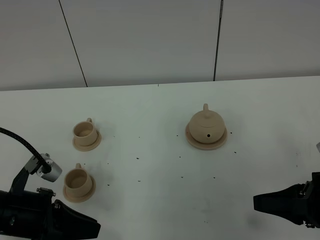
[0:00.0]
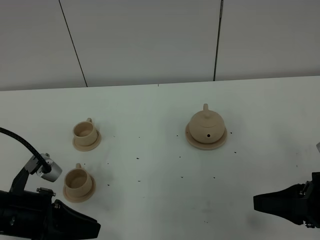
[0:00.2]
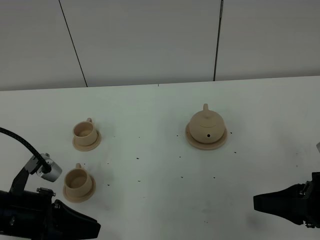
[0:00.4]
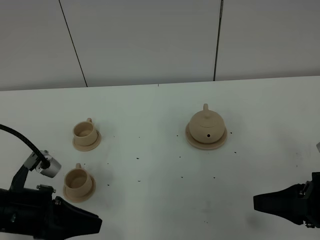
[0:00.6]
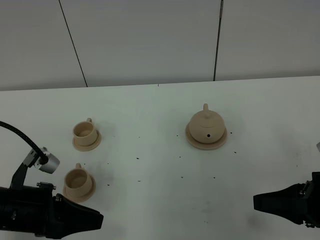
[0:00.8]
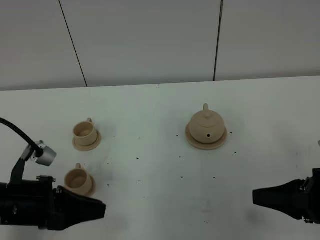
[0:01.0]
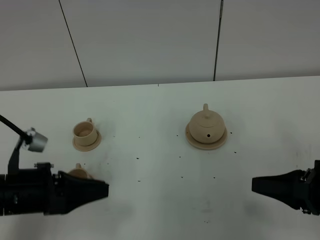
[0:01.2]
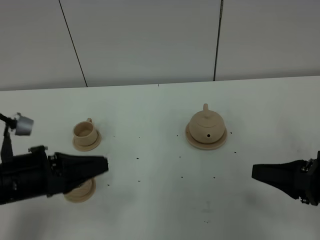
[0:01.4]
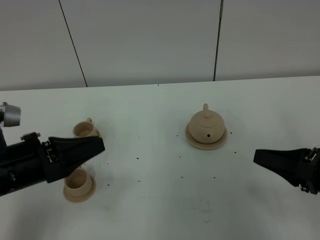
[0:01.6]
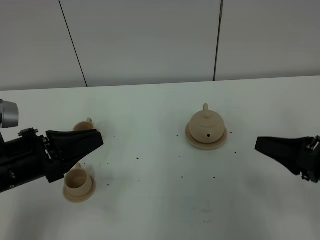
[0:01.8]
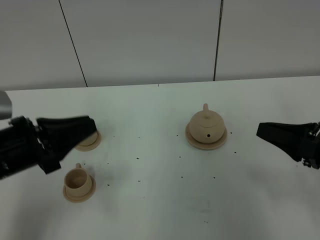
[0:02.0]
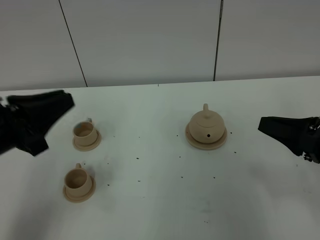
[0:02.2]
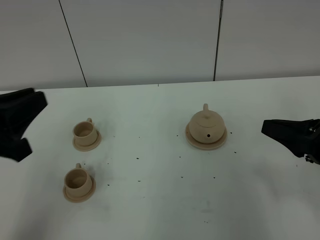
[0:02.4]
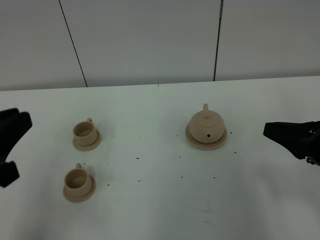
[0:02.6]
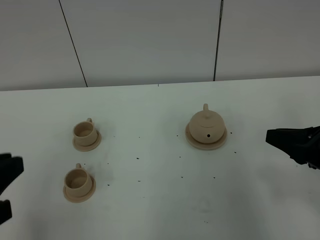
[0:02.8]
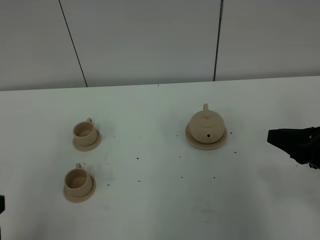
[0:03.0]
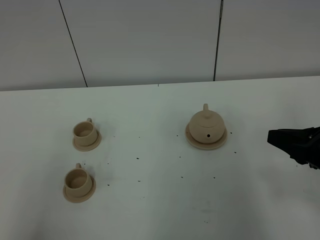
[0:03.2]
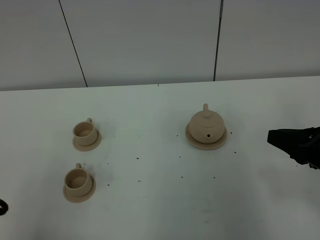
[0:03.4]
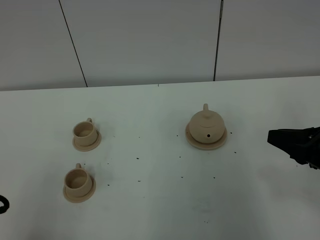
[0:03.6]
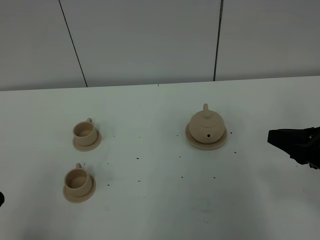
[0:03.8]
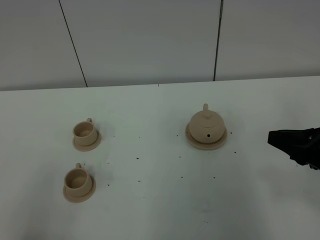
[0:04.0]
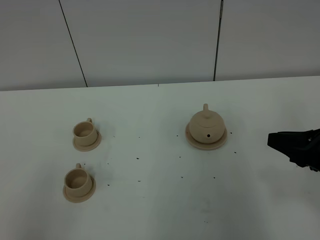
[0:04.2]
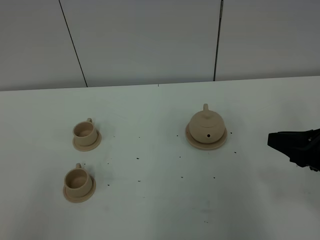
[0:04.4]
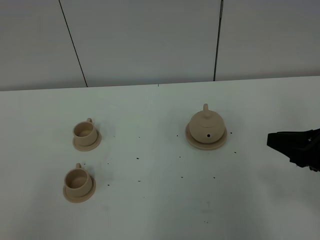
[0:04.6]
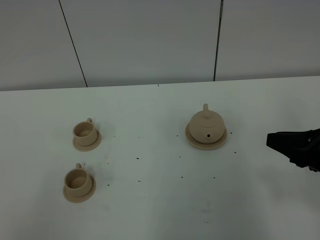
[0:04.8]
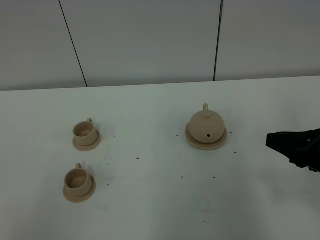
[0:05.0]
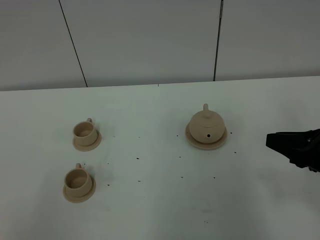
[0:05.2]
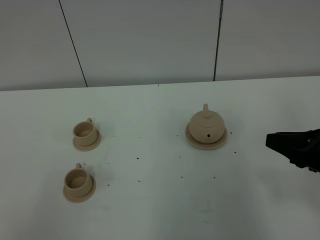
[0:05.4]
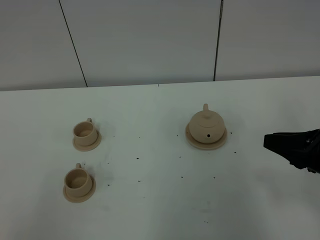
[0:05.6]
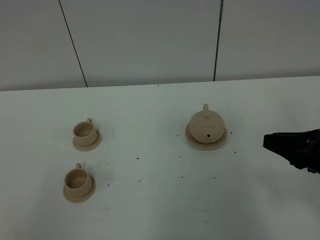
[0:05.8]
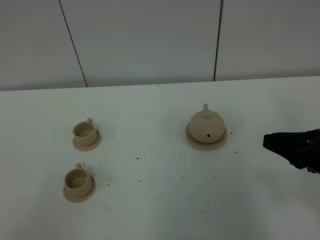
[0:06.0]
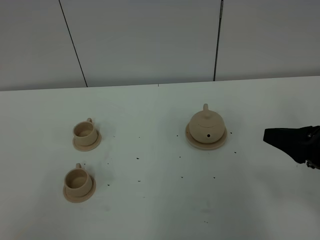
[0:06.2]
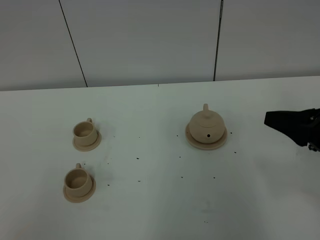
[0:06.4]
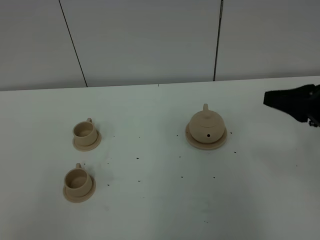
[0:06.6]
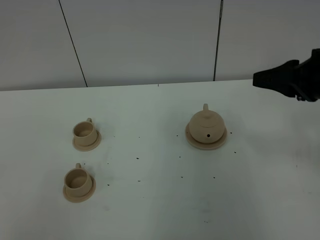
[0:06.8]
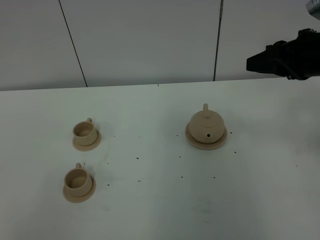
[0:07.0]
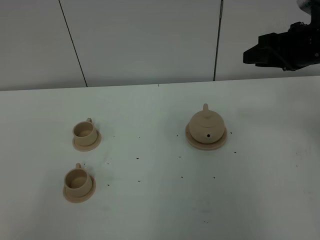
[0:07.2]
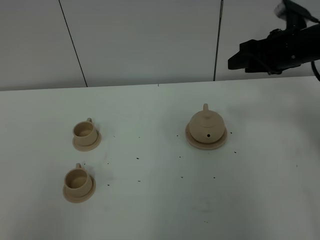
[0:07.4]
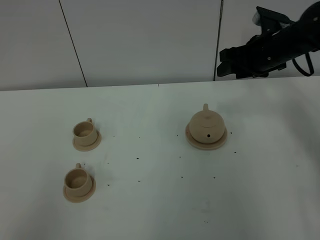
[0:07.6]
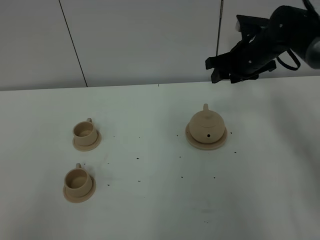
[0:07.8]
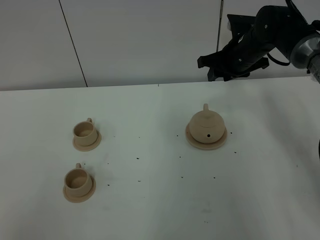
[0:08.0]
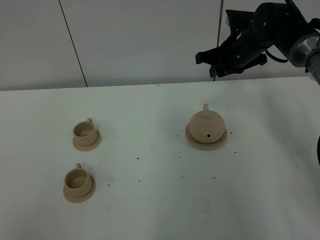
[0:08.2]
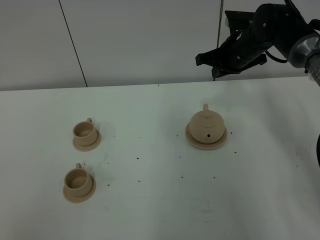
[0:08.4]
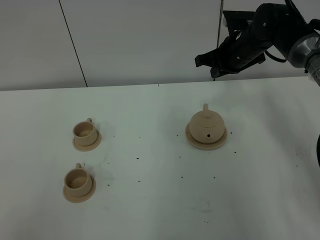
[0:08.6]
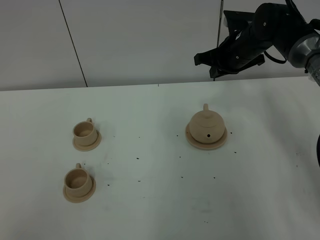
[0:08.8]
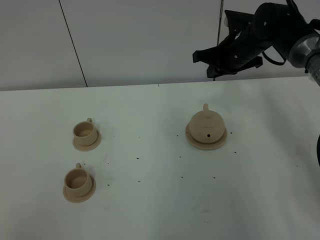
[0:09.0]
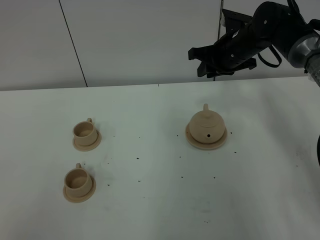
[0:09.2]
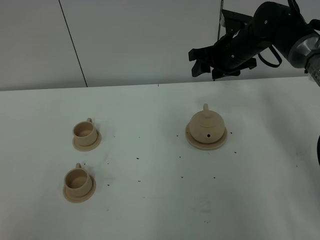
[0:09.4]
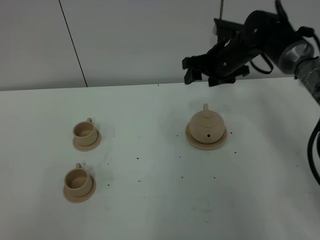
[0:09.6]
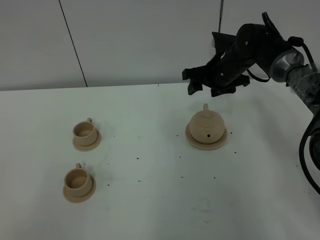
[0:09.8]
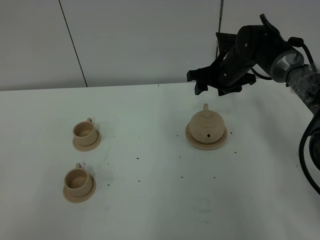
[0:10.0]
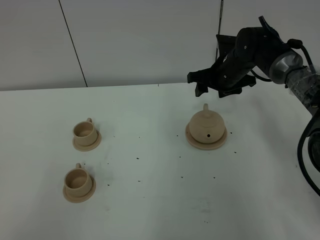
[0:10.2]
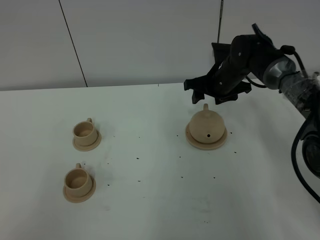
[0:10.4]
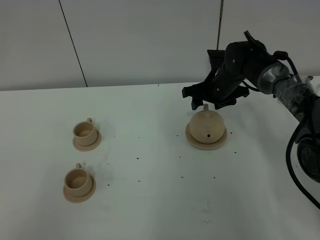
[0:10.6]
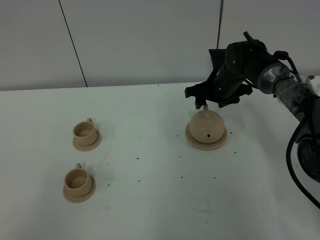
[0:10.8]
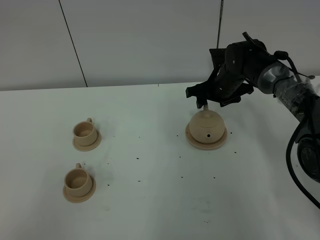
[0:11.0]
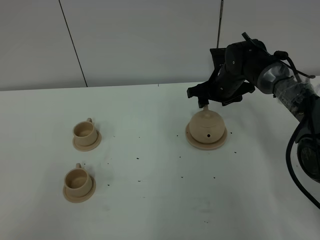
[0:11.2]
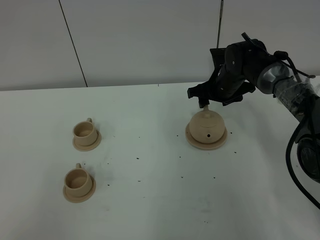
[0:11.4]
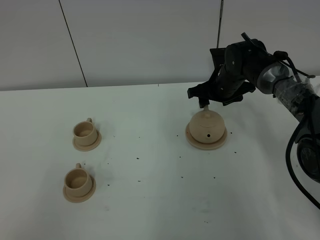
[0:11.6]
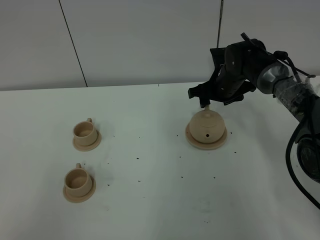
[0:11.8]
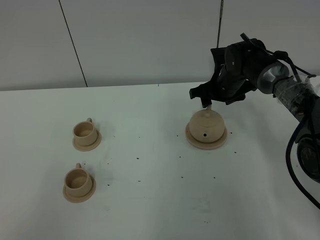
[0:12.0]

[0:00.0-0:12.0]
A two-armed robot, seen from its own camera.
Task of the whole recording: grasp the brown teapot and pour the tea into the two brown teacups one by one, put the brown teapot back in its original place.
0:00.0 to 0:01.6: The left gripper ends up approximately 5 cm from where it was.
0:01.6 to 0:03.0: The left gripper is displaced backward and upward by about 15 cm.
0:06.0 to 0:07.6: The right gripper moves forward, about 25 cm, and opens.
0:07.6 to 0:09.0: The right gripper moves to the left, some 5 cm, and closes up.
0:09.0 to 0:10.4: The right gripper shifts roughly 5 cm downward, and opens up.
0:10.4 to 0:12.0: The grippers move only a little.

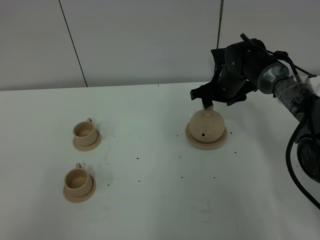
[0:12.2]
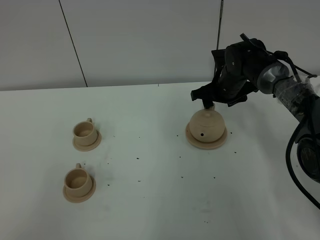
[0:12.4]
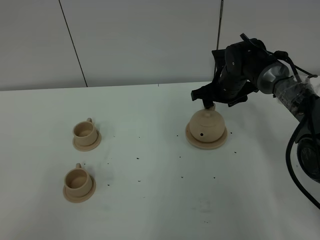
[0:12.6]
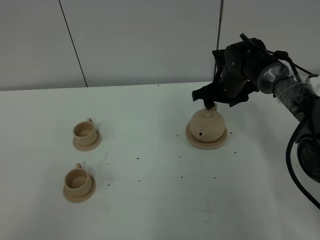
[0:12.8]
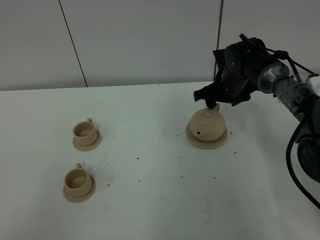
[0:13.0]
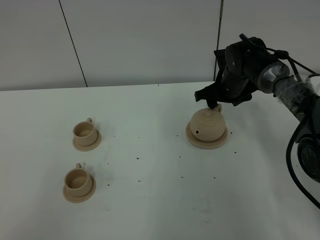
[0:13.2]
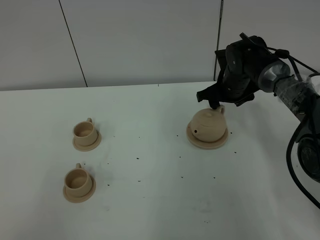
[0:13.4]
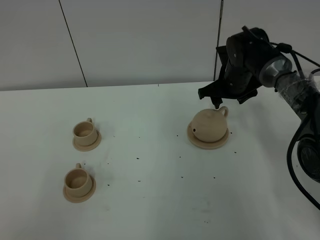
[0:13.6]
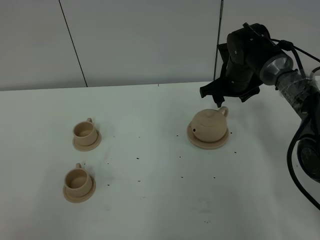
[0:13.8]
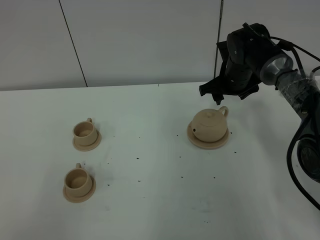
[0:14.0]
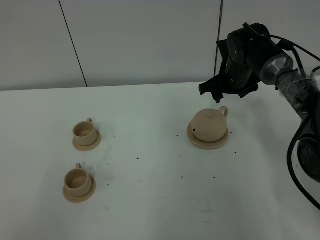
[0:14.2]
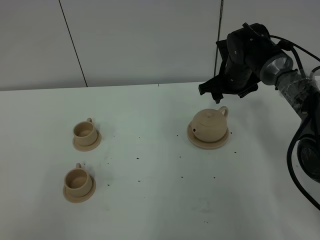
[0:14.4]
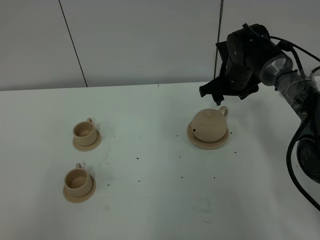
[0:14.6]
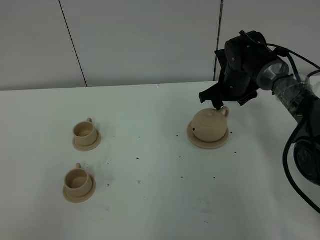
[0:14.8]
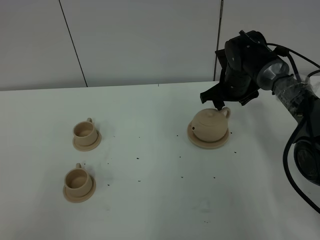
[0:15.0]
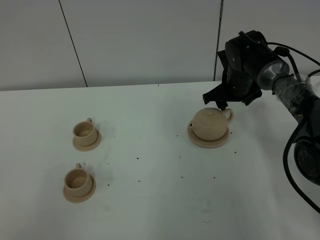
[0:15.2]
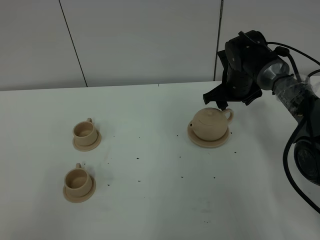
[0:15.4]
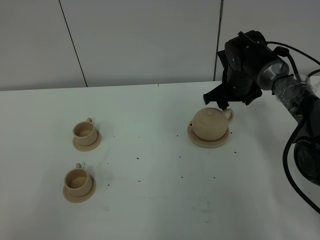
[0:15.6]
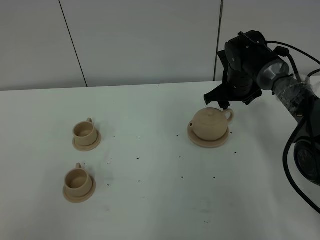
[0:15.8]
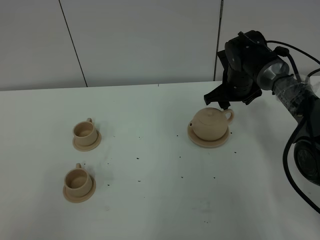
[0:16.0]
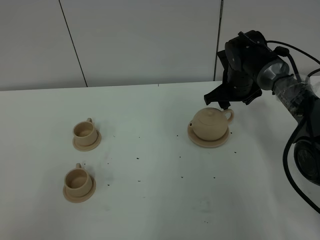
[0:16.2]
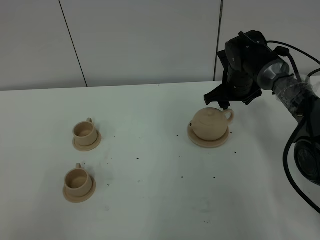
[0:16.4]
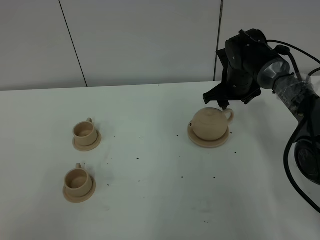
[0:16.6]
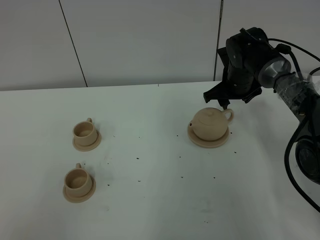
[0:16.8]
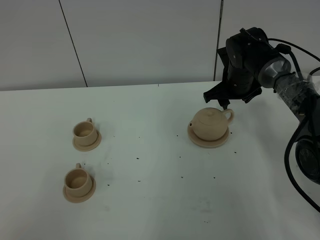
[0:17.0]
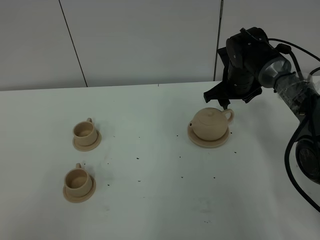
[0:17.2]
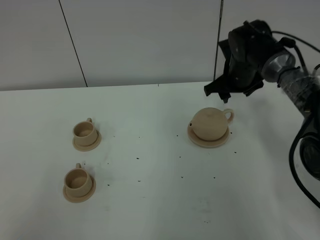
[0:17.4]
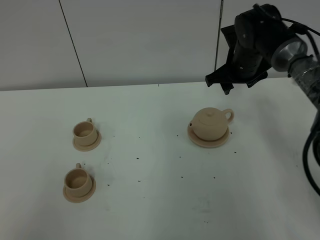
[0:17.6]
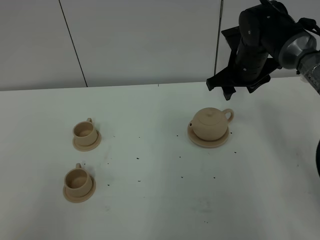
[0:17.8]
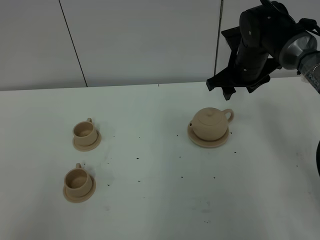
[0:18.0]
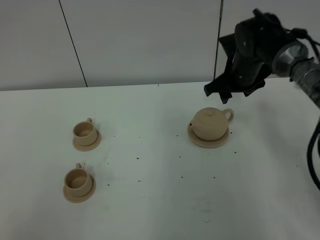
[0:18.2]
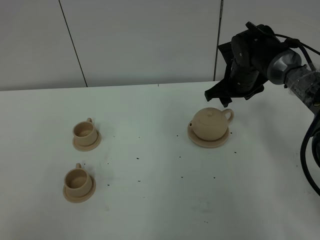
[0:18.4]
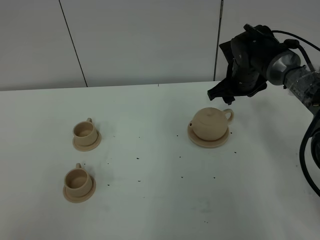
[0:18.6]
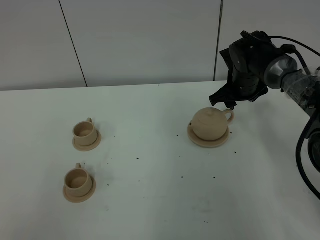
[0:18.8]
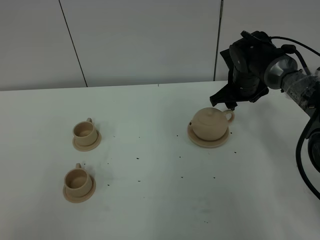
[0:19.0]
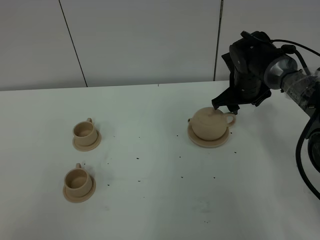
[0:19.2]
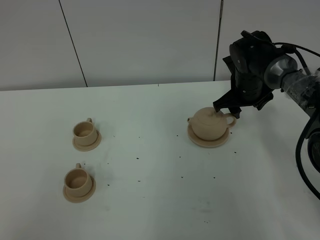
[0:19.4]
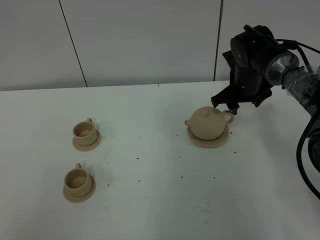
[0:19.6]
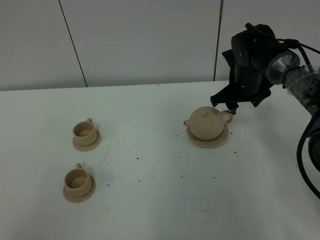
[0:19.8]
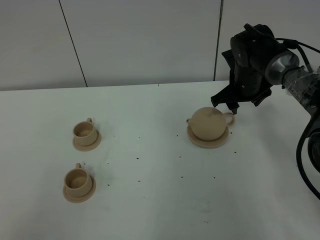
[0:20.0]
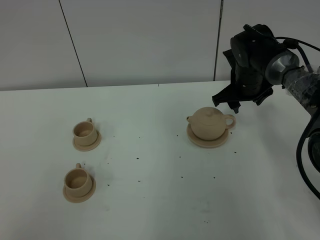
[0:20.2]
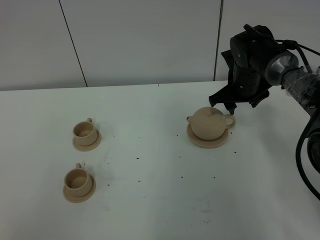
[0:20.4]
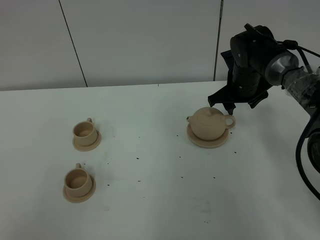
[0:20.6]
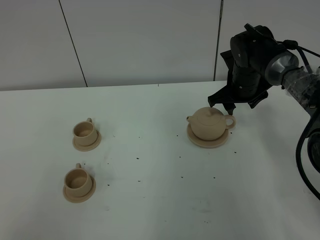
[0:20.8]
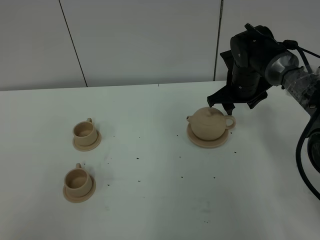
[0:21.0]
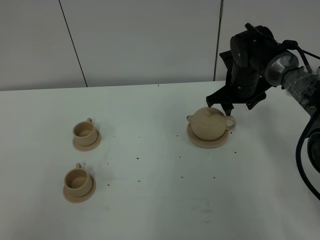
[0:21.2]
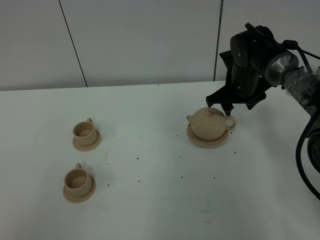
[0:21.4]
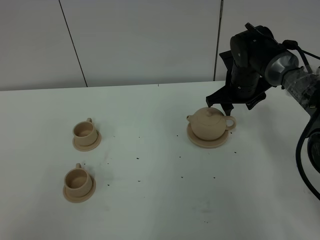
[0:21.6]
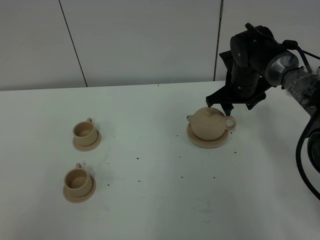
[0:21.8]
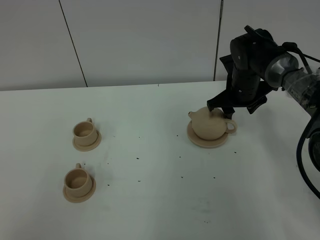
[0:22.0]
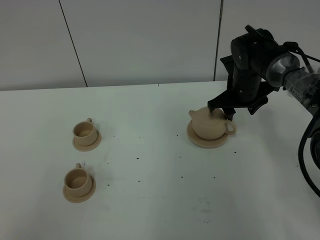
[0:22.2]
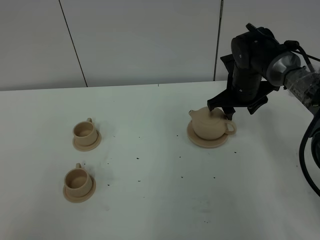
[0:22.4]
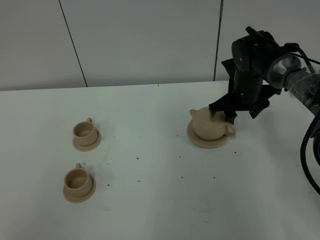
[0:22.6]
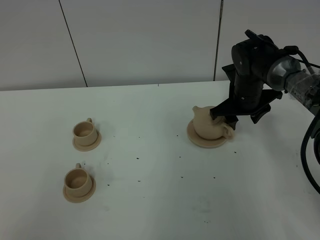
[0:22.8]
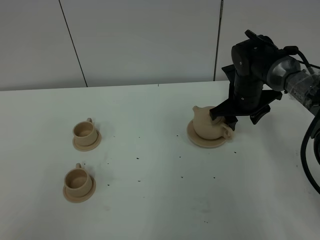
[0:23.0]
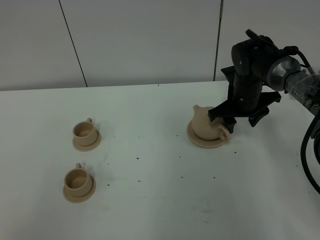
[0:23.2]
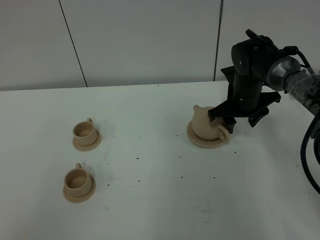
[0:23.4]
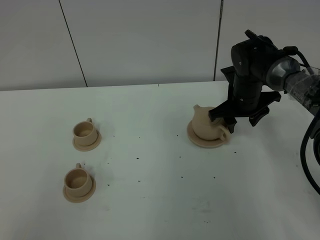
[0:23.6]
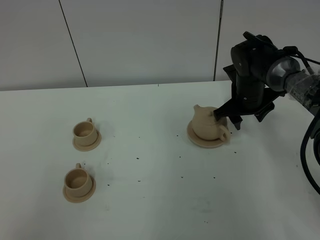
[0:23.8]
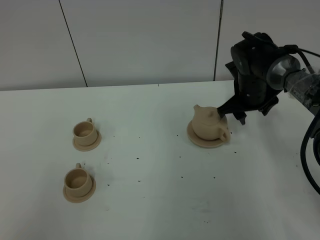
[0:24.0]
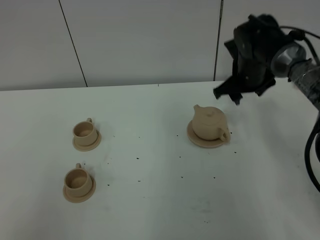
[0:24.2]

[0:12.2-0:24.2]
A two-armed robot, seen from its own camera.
Task of the whole recording: grasp the brown teapot and pour the tea into the two brown teacups one by one, put the brown teapot back in its original place.
0:12.2 to 0:15.2: The grippers stay close to where they were, moving slightly.
0:15.2 to 0:16.6: The two grippers keep their place.
0:18.2 to 0:19.8: There are only small adjustments of the grippers.
0:19.8 to 0:21.2: Both grippers stay about where they are.
0:21.2 to 0:22.6: There are only small adjustments of the grippers.
0:22.6 to 0:24.2: The right gripper goes some 5 cm upward.
